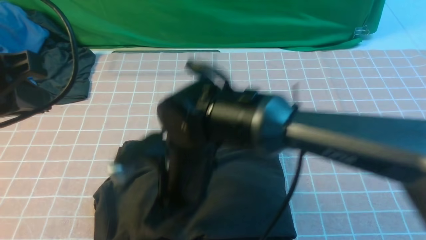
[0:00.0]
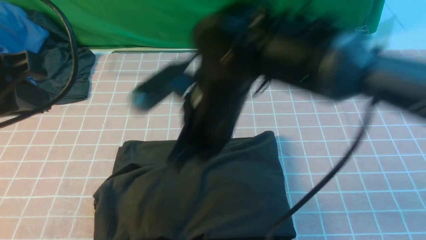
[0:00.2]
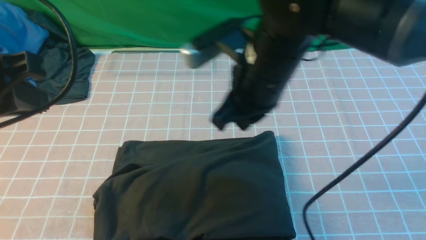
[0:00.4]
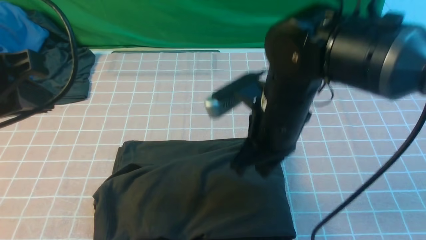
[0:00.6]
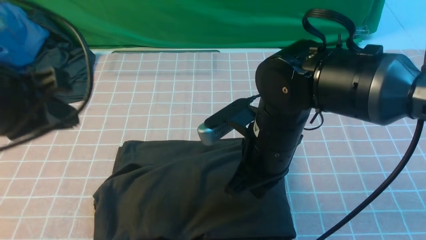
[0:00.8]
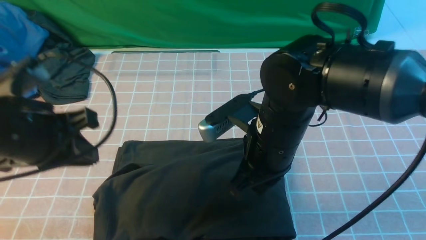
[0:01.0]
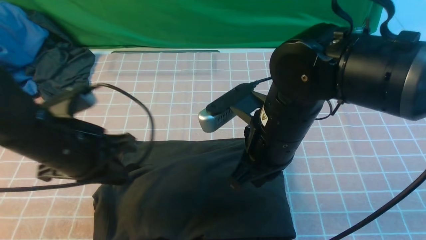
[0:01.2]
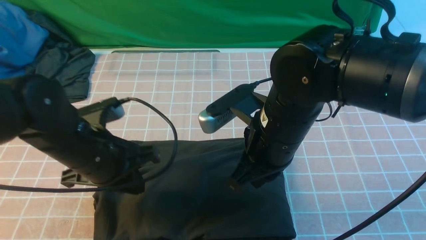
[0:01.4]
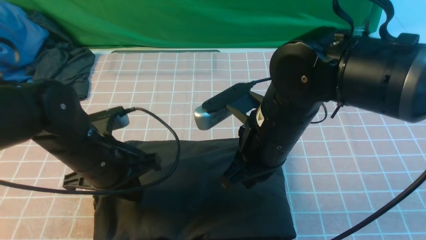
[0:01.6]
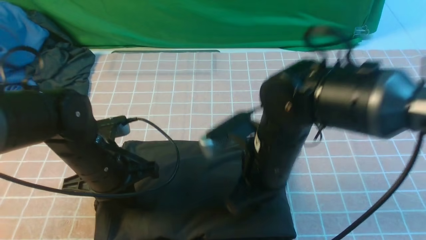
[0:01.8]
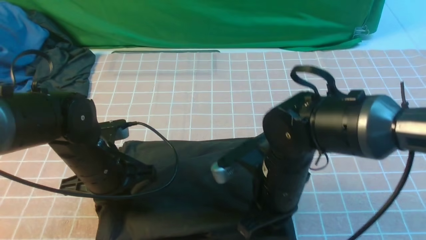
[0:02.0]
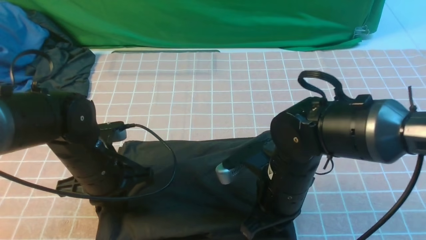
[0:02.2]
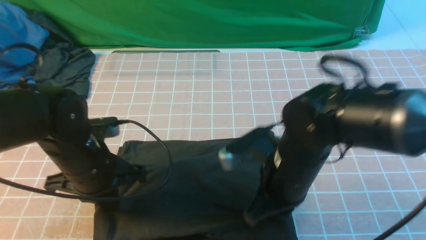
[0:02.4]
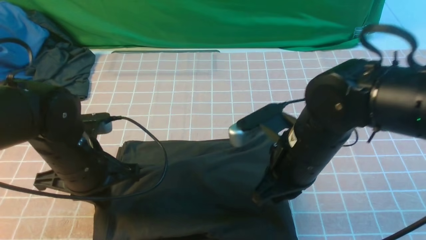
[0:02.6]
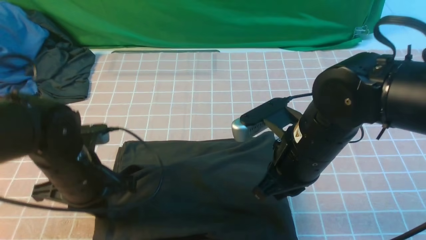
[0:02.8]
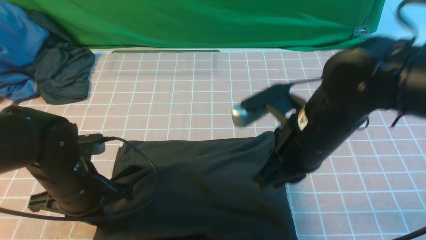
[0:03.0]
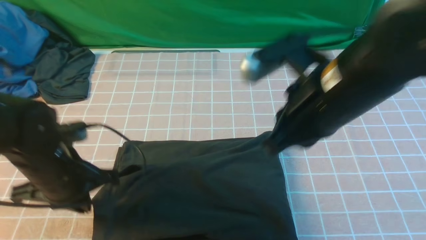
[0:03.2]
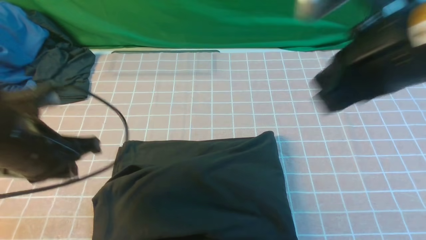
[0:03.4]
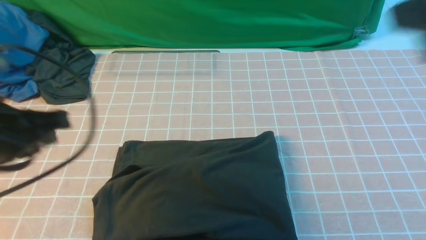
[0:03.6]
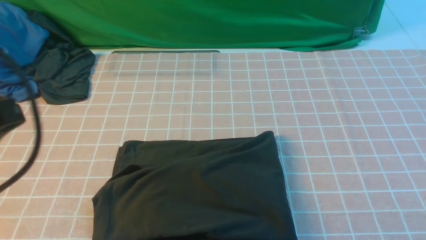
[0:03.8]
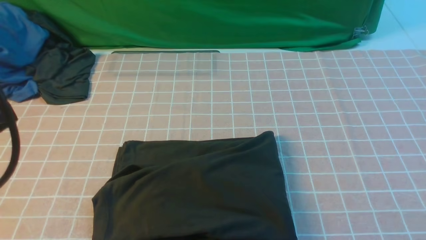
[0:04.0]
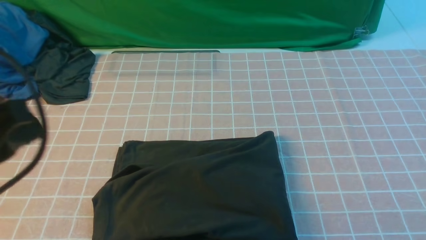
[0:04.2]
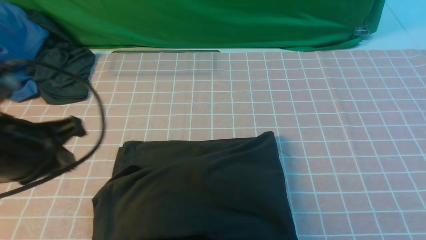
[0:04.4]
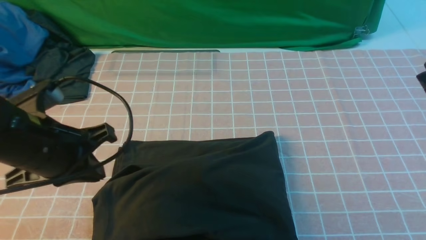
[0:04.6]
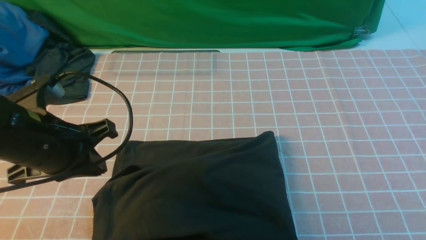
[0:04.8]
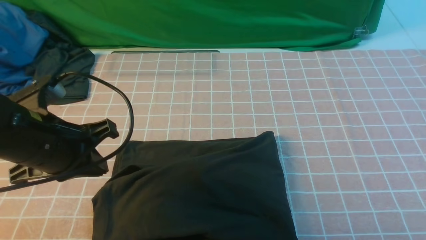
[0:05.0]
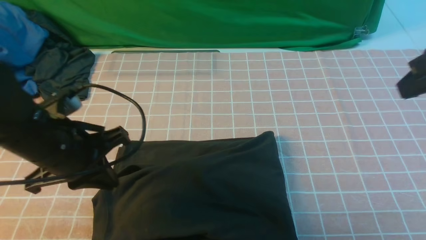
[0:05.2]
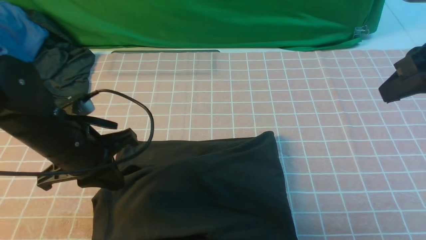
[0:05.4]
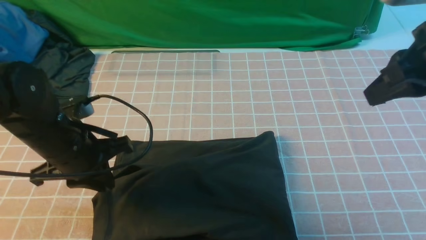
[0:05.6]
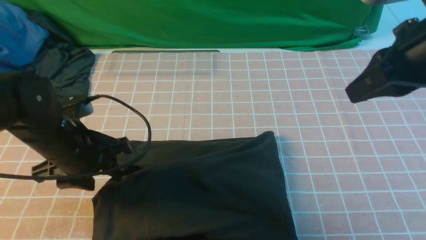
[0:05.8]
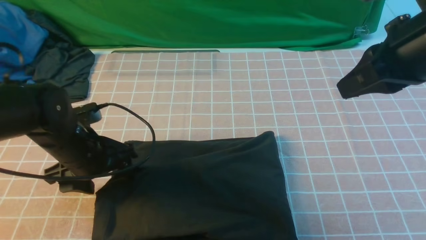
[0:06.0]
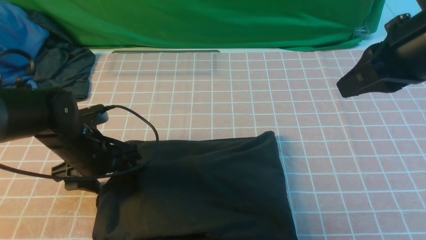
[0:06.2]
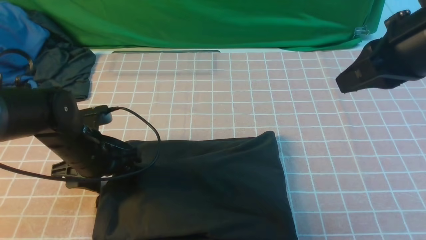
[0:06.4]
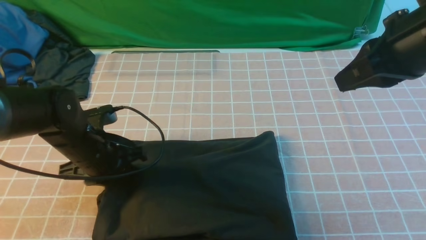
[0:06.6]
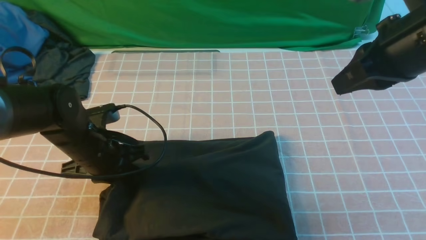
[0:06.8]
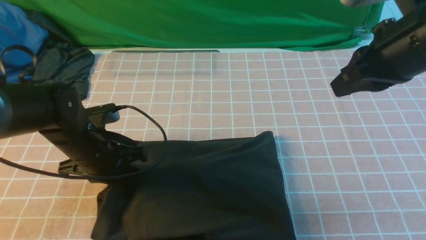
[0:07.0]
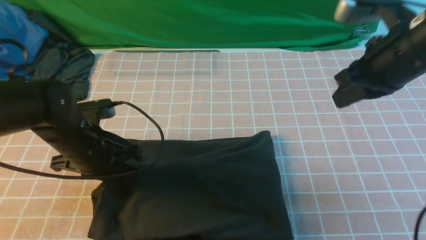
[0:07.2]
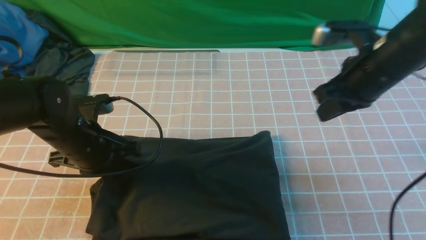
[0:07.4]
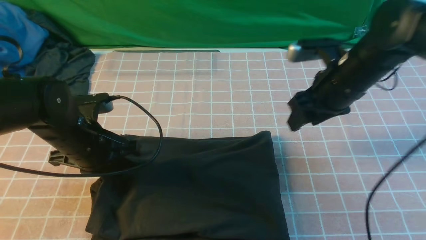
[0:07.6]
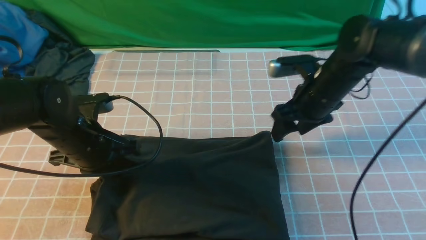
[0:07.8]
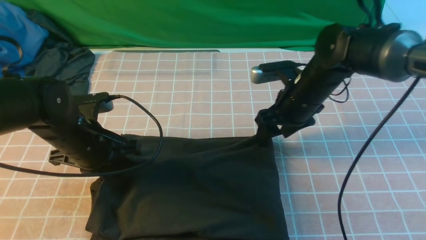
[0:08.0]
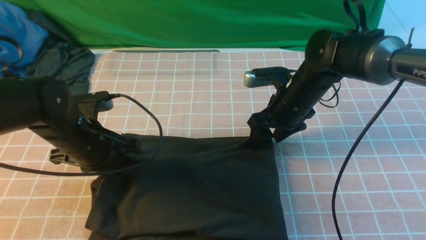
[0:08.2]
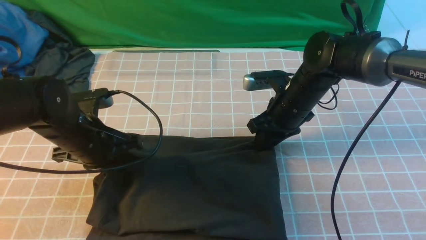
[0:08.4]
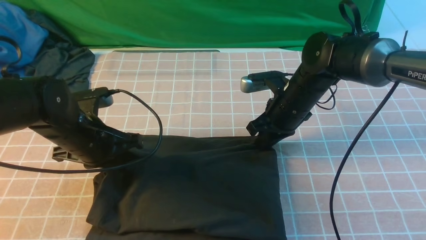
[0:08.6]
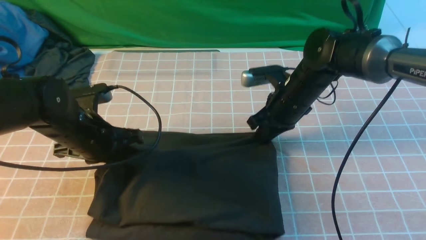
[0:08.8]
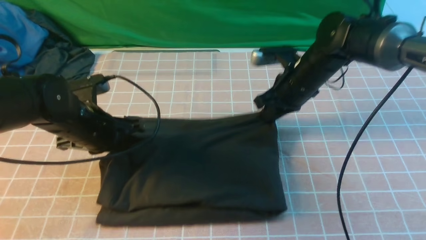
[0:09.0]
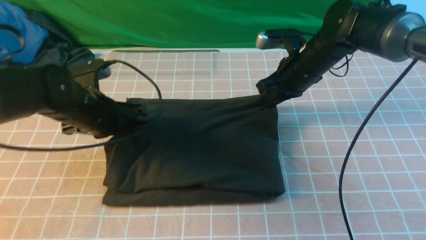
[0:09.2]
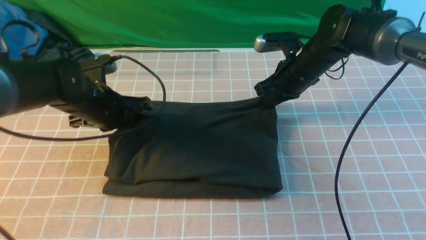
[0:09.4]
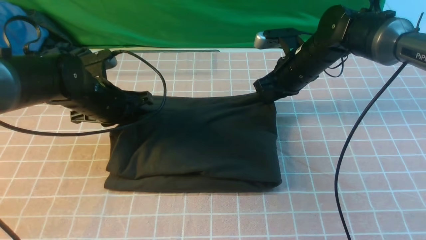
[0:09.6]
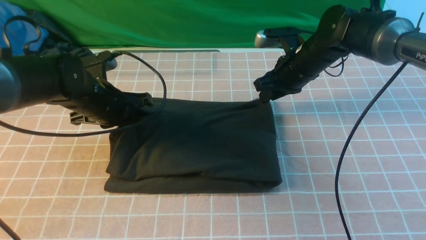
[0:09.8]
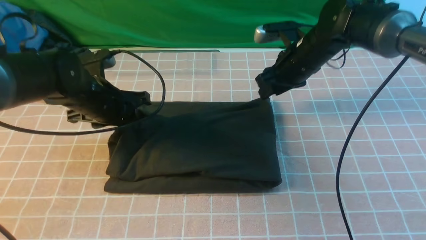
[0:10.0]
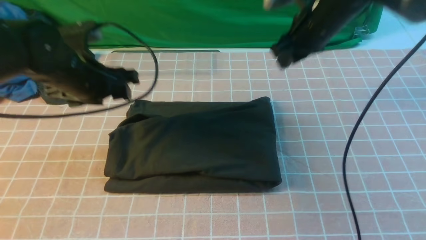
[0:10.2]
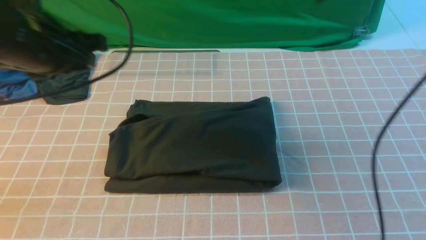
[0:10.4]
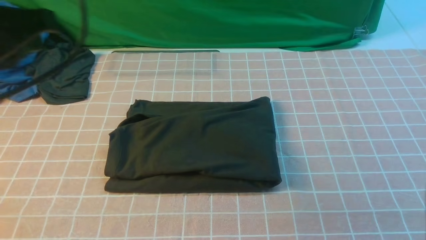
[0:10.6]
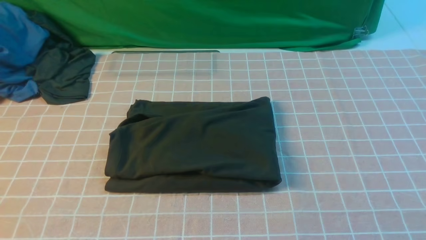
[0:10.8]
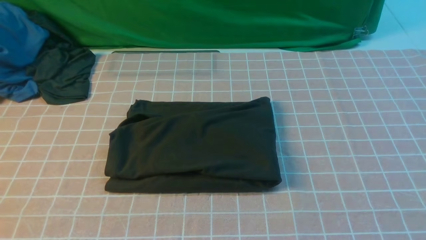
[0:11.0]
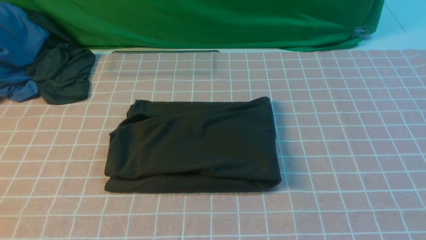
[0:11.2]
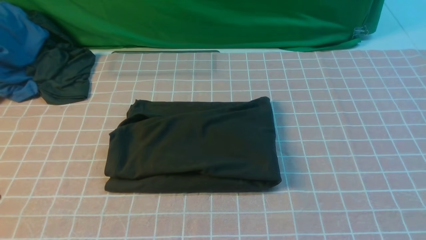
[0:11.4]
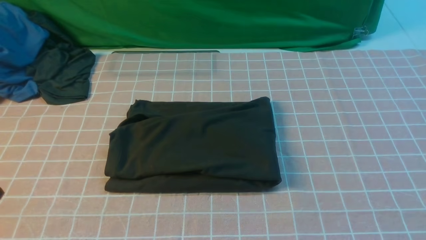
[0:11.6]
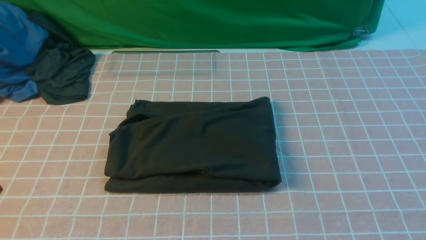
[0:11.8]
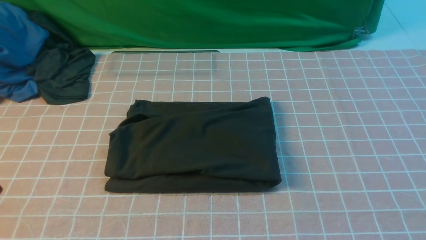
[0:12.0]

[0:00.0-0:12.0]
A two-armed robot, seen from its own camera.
0:00.0 to 0:01.6: The left gripper is displaced downward by about 20 cm, while the right gripper is displaced to the right by approximately 10 cm.
0:01.6 to 0:03.0: The right gripper changes place by some 5 cm.
0:03.0 to 0:04.4: The left gripper travels upward and backward by approximately 15 cm. Meanwhile the right gripper goes about 25 cm upward, to the right and backward.
0:04.4 to 0:06.0: The right gripper shifts about 10 cm forward and downward, while the left gripper heads downward and forward, covering approximately 15 cm, and opens.
0:06.0 to 0:07.6: The left gripper closes its fingers. The right gripper travels downward and forward by some 20 cm, and opens up.
0:07.6 to 0:09.0: The right gripper moves forward, some 5 cm, and closes up.
0:09.0 to 0:10.4: The right gripper travels upward by roughly 25 cm. Meanwhile the left gripper is displaced upward by some 15 cm.
0:10.4 to 0:12.0: Both grippers travel together backward, approximately 30 cm. The left gripper closes up.

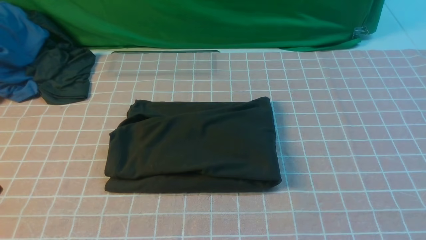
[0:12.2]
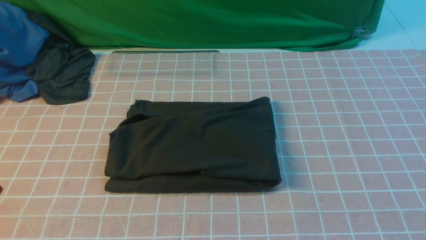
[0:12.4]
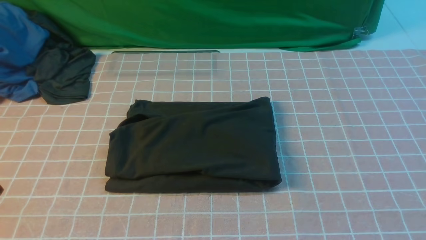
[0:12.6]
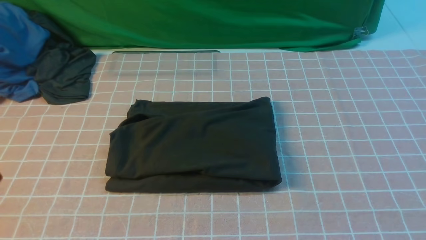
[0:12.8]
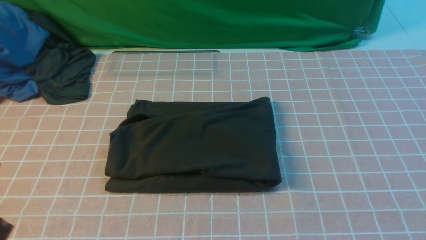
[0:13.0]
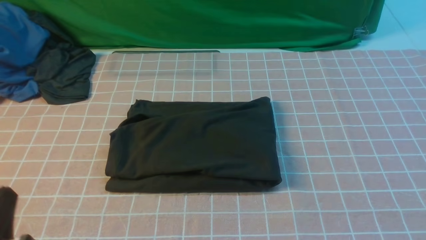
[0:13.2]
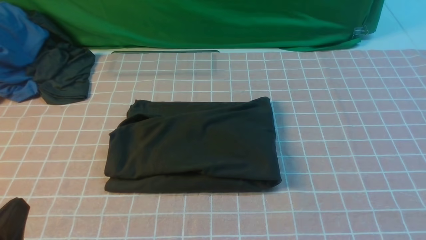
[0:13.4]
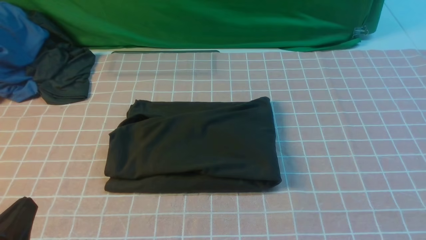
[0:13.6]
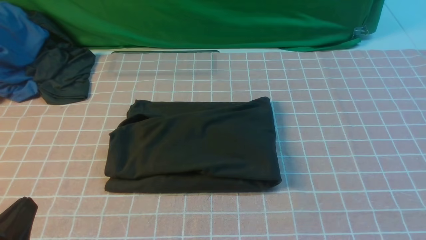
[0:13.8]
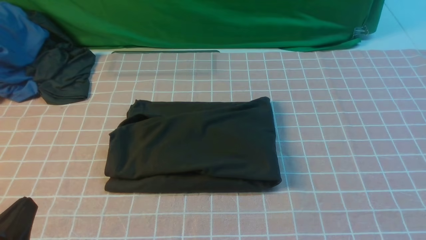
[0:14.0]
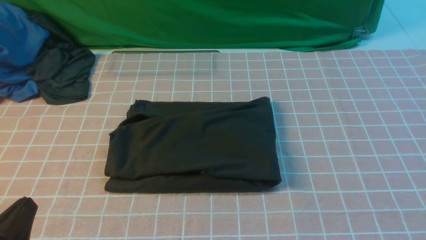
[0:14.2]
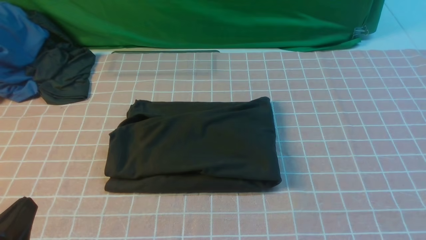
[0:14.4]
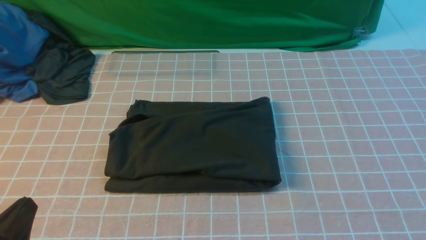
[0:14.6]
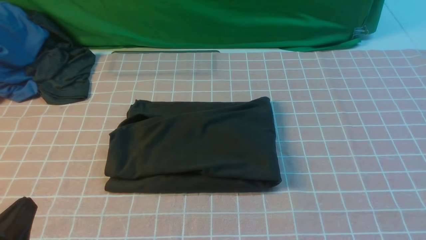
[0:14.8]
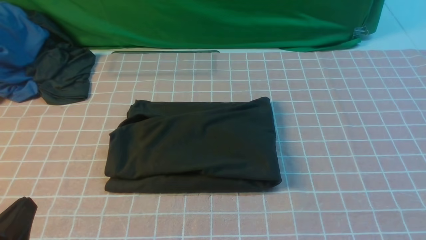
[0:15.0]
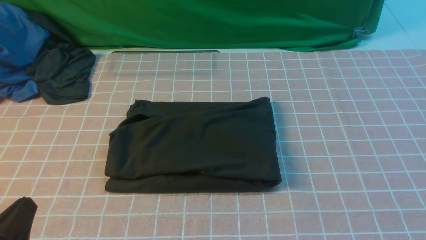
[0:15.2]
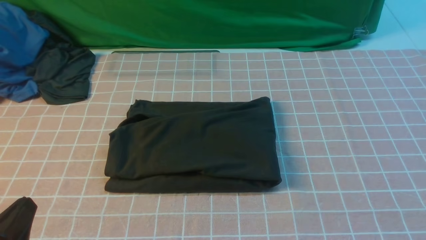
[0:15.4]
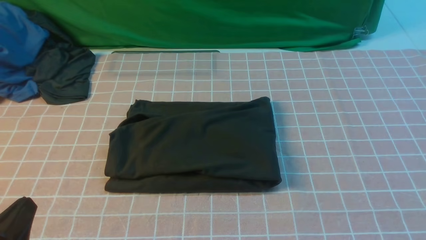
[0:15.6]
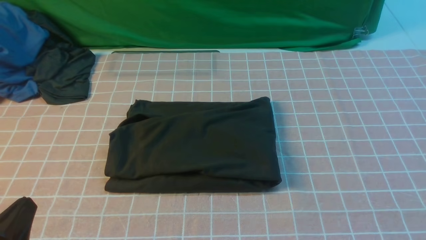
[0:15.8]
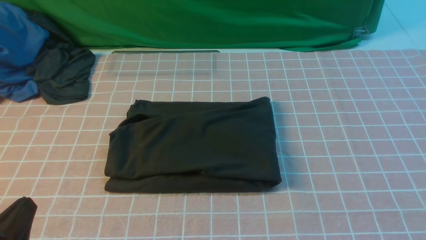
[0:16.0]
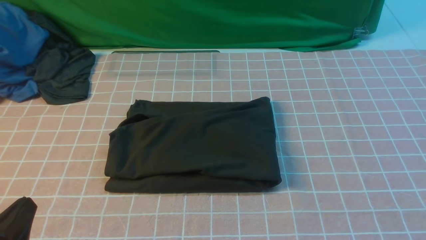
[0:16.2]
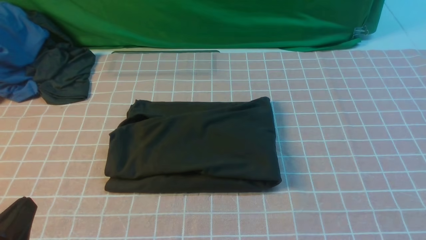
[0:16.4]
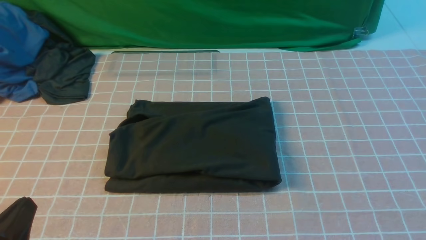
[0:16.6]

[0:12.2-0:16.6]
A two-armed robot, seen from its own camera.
0:12.2 to 0:13.6: The left gripper heads downward, covering some 10 cm.
0:15.2 to 0:16.6: The two grippers keep their place.
